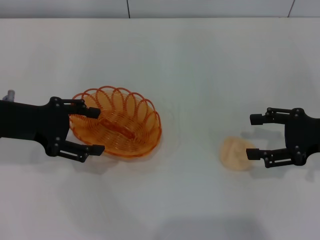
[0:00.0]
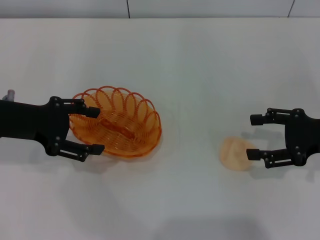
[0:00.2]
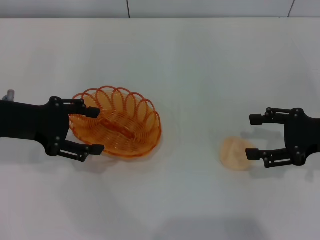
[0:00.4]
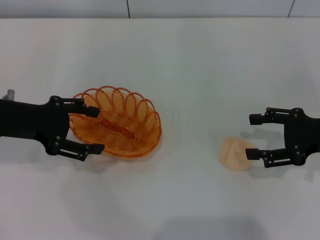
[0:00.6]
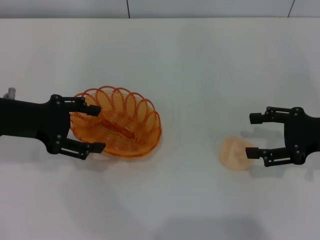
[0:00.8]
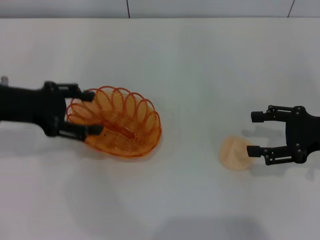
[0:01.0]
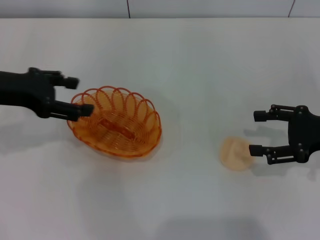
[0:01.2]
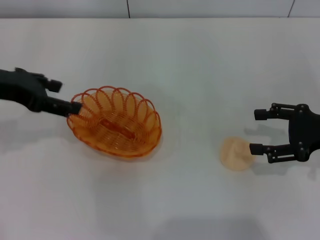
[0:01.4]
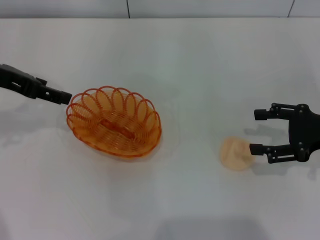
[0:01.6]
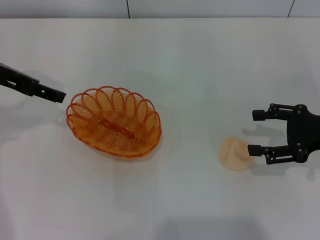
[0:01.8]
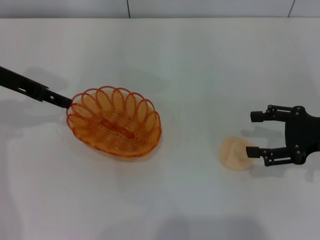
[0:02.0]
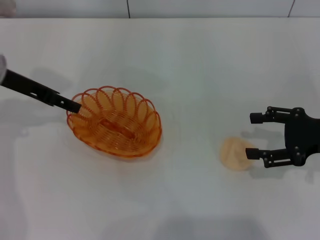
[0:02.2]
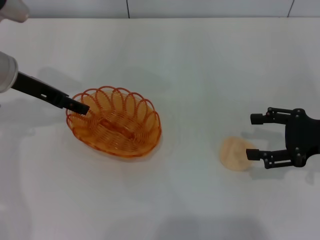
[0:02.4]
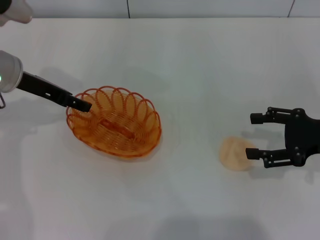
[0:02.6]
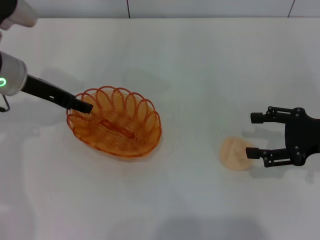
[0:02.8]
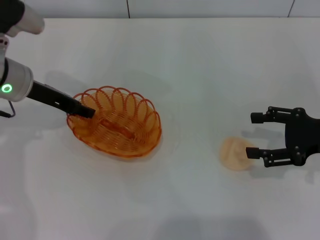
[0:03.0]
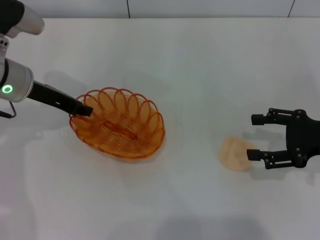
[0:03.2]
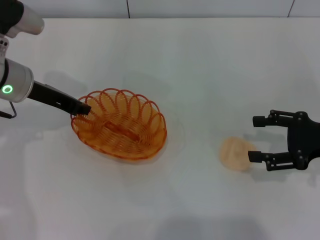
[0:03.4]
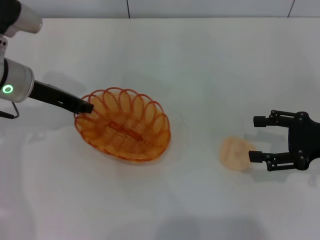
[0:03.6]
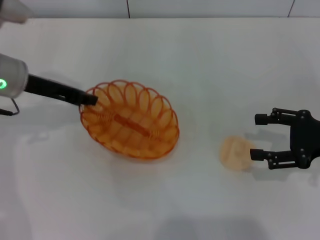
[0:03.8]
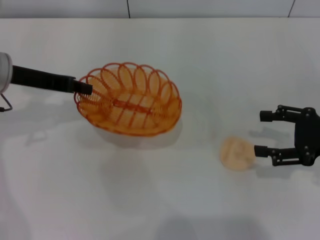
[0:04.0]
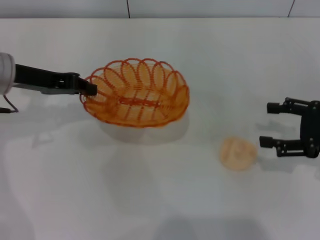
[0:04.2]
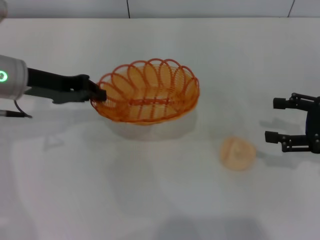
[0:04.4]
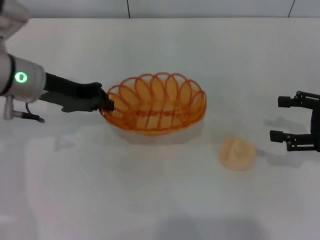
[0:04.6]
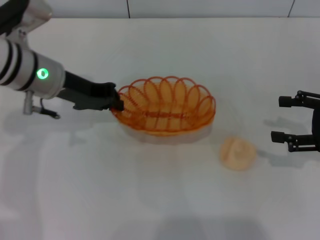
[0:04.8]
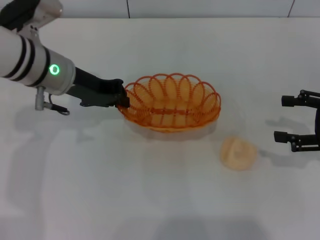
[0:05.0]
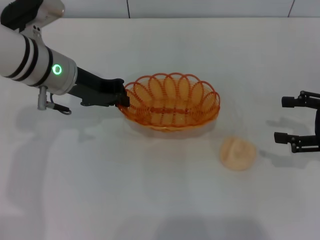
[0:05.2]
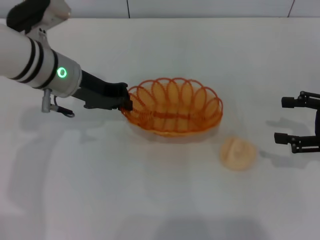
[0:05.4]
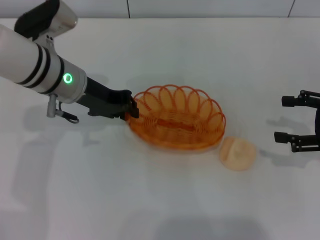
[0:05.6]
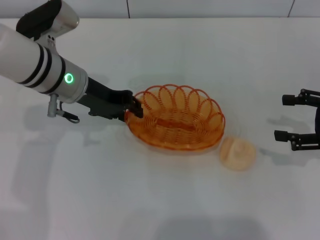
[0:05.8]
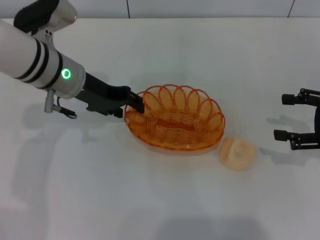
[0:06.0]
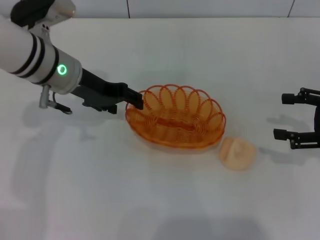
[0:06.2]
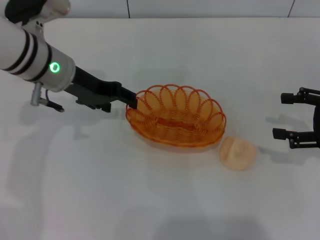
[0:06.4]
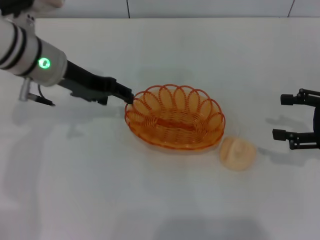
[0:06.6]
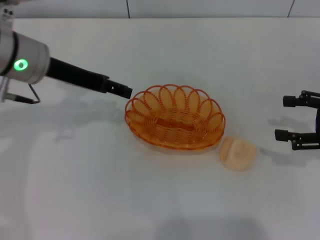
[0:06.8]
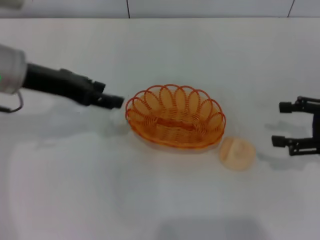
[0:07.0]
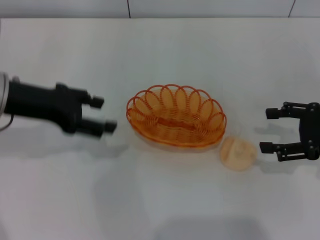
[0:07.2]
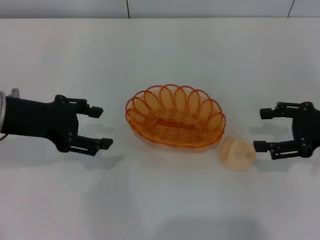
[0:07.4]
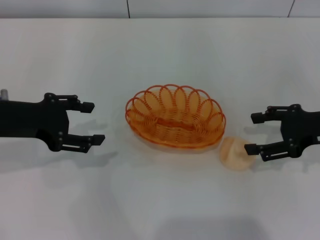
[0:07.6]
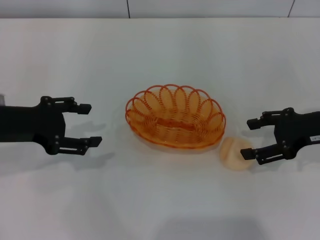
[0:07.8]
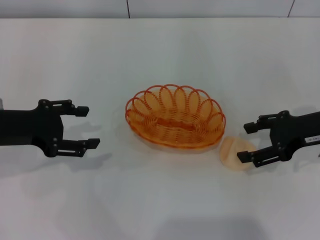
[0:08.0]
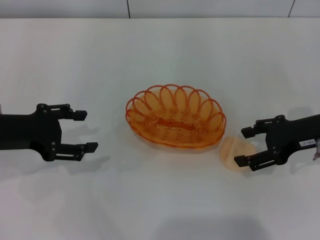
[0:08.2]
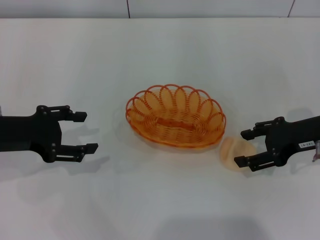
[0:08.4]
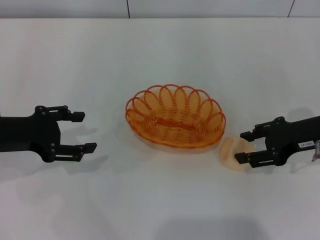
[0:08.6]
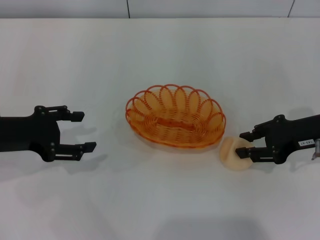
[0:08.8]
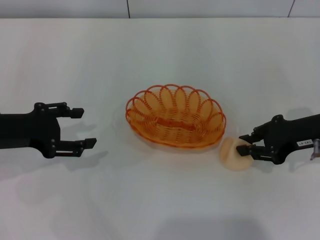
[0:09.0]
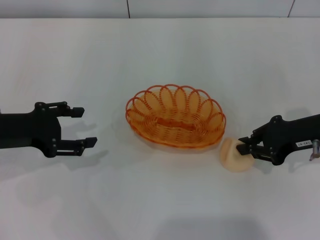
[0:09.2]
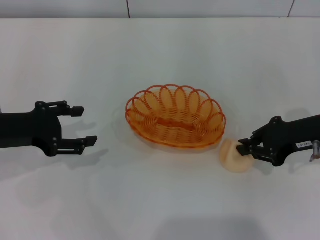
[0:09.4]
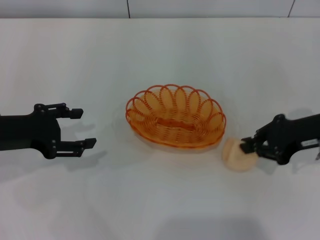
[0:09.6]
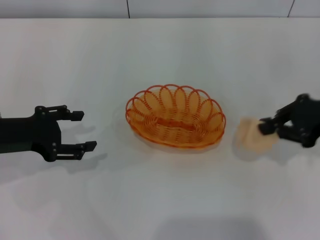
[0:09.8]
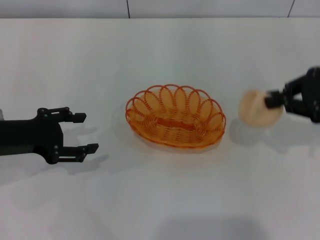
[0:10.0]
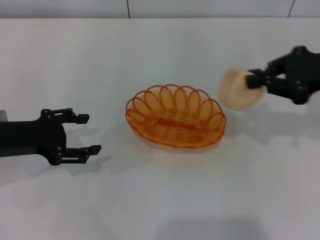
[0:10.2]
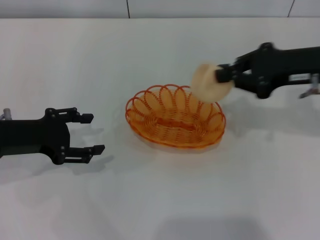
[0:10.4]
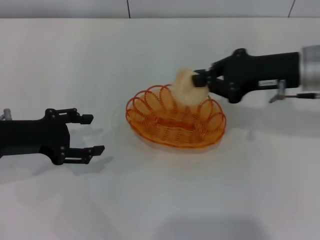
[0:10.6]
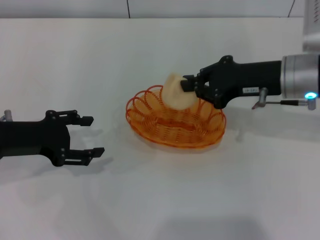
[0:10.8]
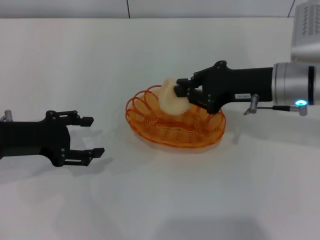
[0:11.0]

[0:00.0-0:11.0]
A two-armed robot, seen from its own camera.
Step, 0.0 to 4.8 s: Pick up the basket with the left gripper.
Step, 5.0 to 6.8 s: Place the basket in the center of view with the left gripper.
Step, 7.0 to 9.8 s: Pick up the egg yolk pastry with the right gripper.
0.0 to 1.6 s: The left gripper moves upward, approximately 5 cm.
1.6 to 3.2 s: The left gripper heads downward, covering some 10 cm, and closes up.
3.2 to 4.8 s: The left gripper closes its fingers.
4.8 to 6.2 s: The left gripper opens its fingers.
6.2 to 7.8 s: The right gripper shifts some 5 cm to the left. The left gripper heads to the left and backward, covering approximately 15 cm, and opens its fingers.
7.8 to 9.4 s: The right gripper closes.
9.4 to 11.0 s: The right gripper moves to the left, about 10 cm.

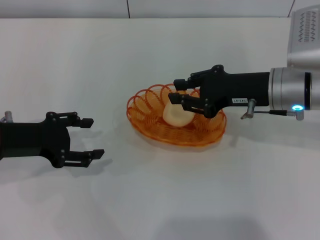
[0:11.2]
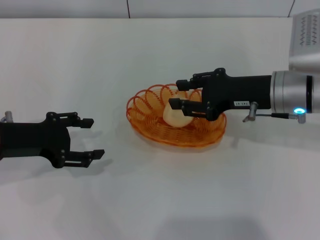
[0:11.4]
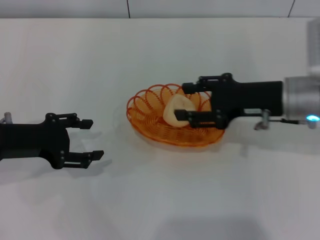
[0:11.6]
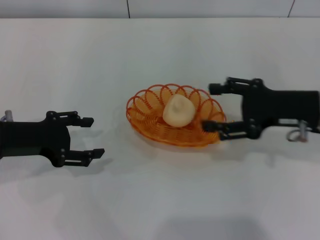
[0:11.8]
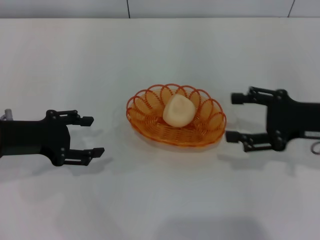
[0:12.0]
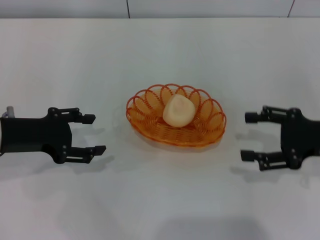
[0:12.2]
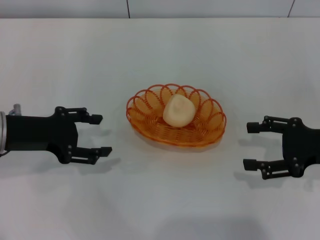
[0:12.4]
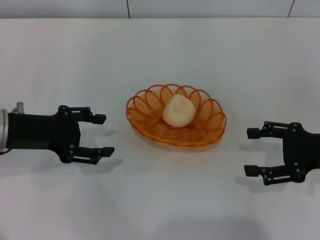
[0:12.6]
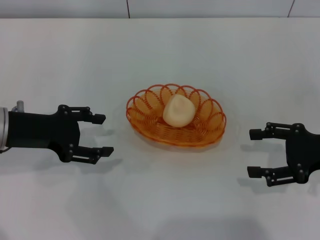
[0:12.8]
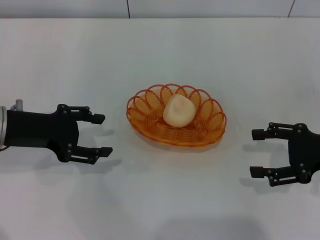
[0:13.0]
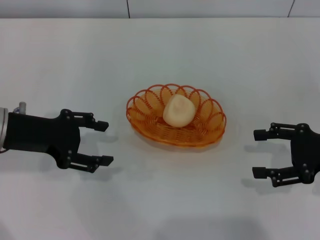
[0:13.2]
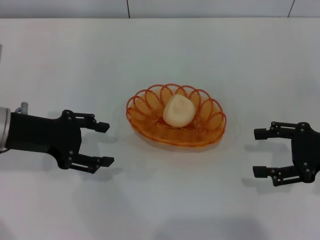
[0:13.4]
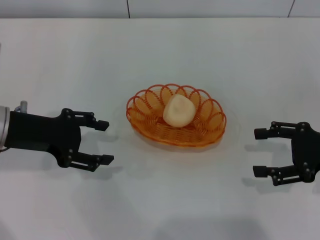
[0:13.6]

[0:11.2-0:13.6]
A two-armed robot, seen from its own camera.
11.2 to 12.4 s: The right gripper moves to the right and backward, some 15 cm, and opens up.
12.4 to 13.6 s: The grippers stay close to where they were, moving slightly.

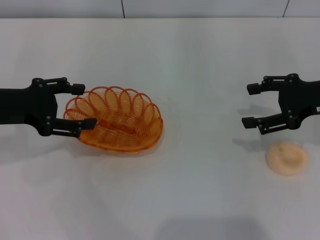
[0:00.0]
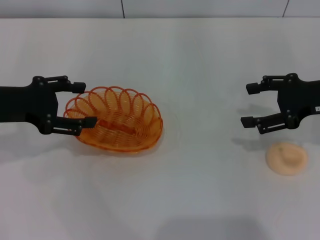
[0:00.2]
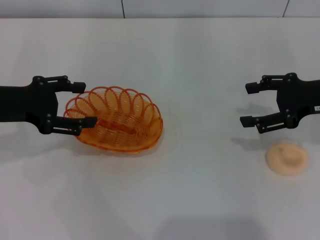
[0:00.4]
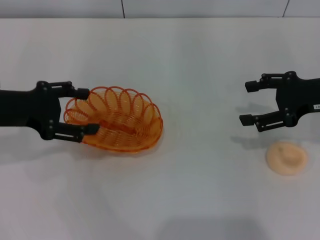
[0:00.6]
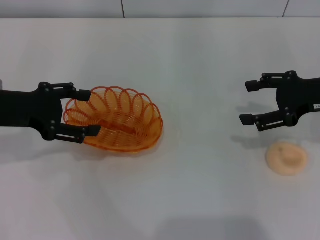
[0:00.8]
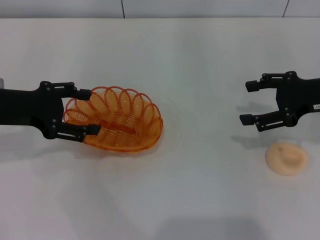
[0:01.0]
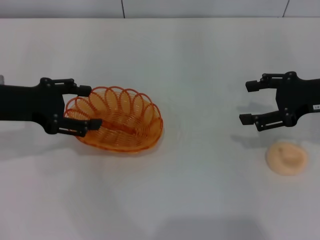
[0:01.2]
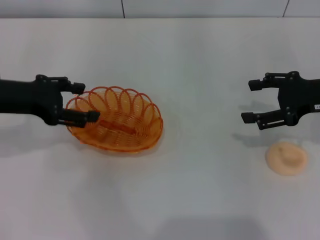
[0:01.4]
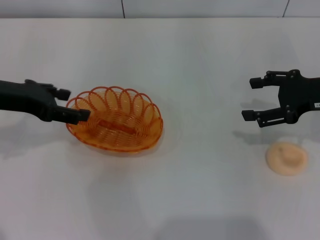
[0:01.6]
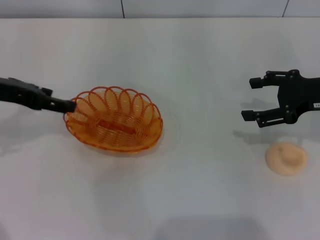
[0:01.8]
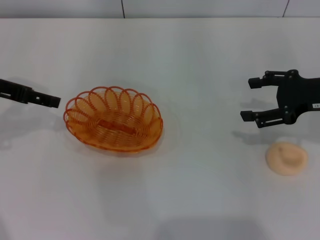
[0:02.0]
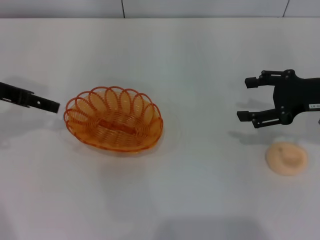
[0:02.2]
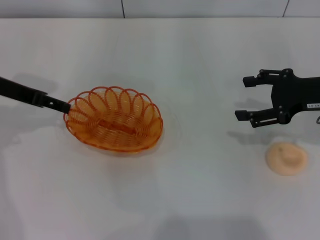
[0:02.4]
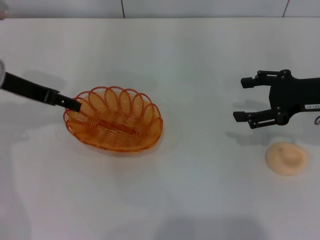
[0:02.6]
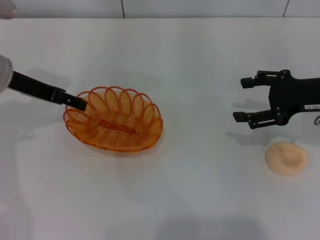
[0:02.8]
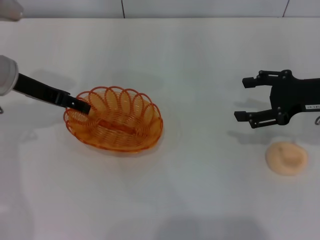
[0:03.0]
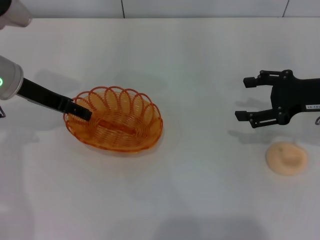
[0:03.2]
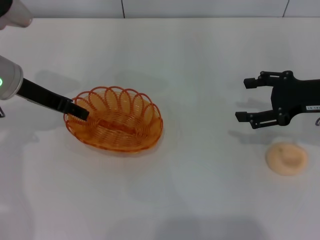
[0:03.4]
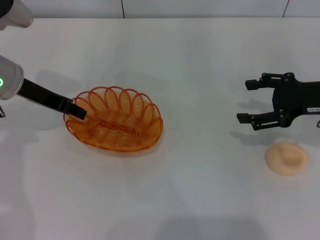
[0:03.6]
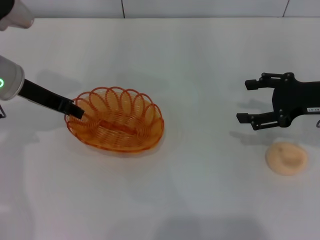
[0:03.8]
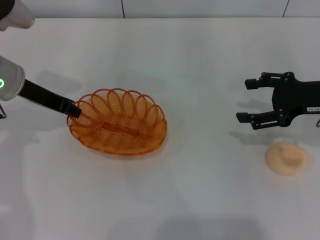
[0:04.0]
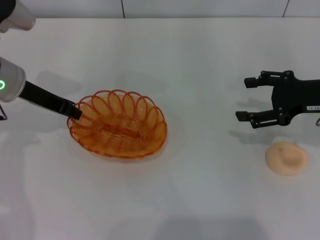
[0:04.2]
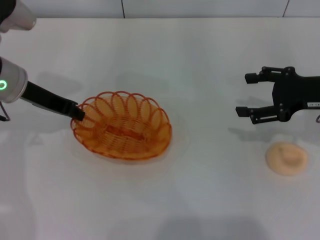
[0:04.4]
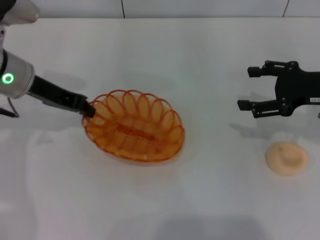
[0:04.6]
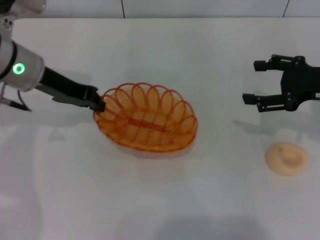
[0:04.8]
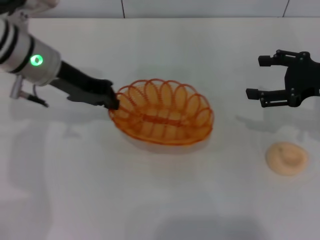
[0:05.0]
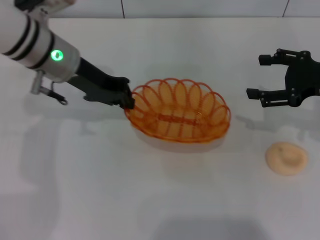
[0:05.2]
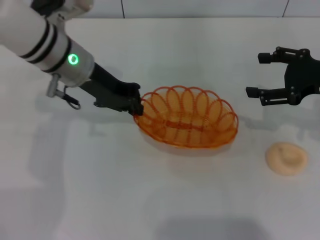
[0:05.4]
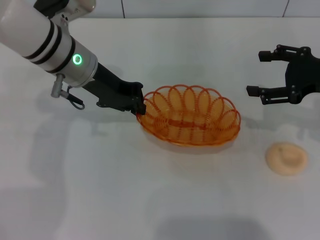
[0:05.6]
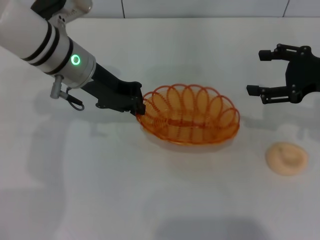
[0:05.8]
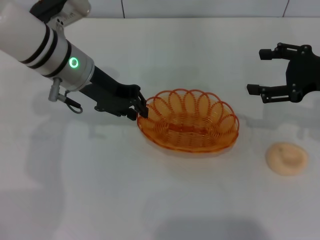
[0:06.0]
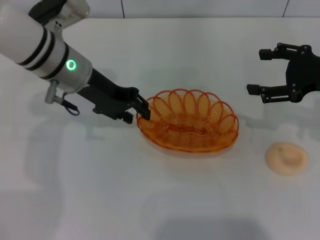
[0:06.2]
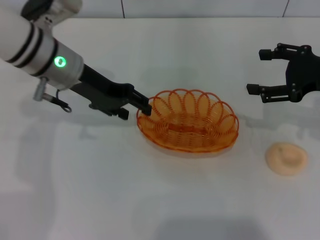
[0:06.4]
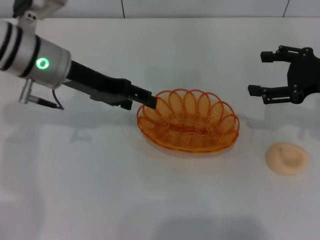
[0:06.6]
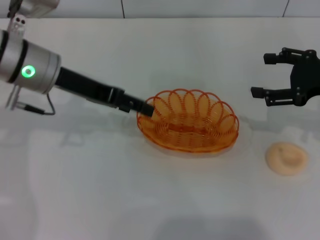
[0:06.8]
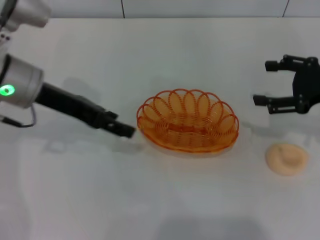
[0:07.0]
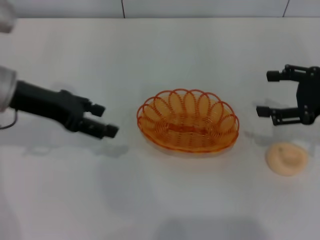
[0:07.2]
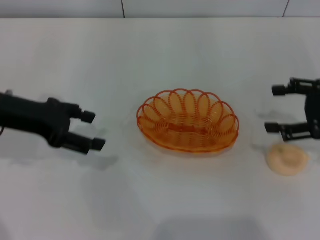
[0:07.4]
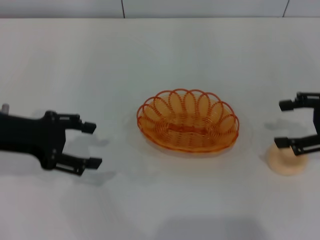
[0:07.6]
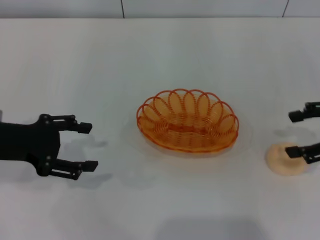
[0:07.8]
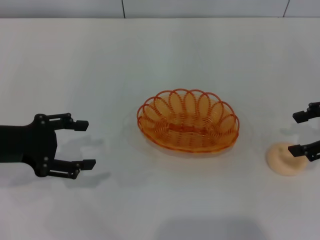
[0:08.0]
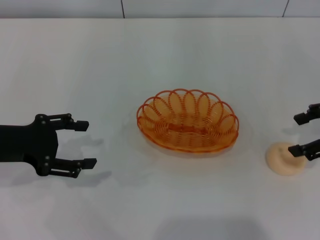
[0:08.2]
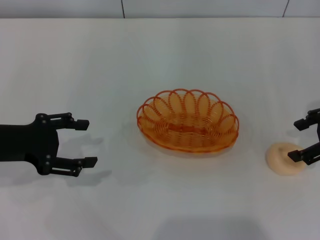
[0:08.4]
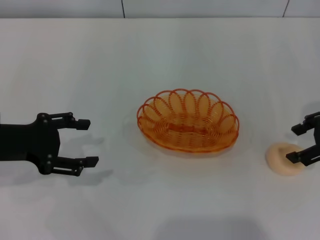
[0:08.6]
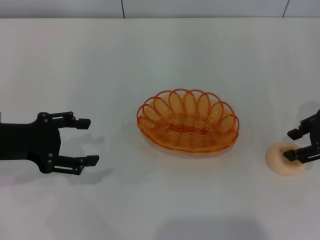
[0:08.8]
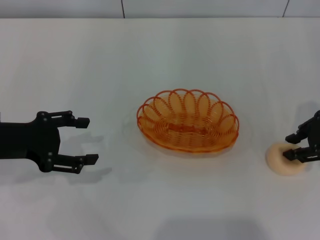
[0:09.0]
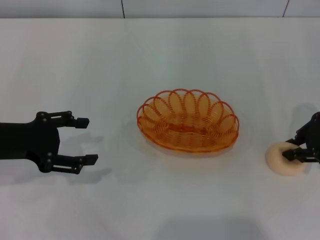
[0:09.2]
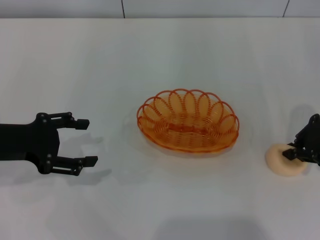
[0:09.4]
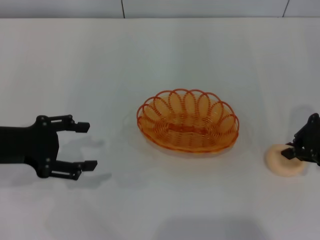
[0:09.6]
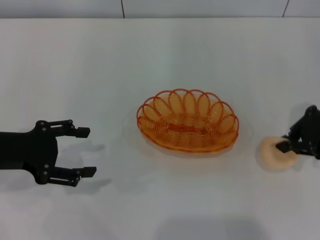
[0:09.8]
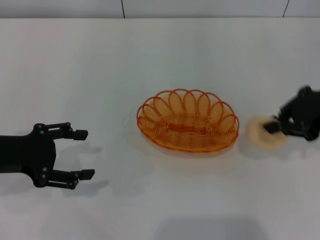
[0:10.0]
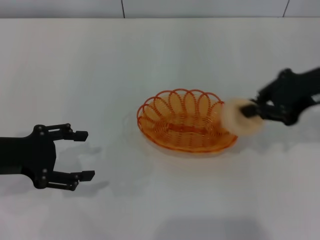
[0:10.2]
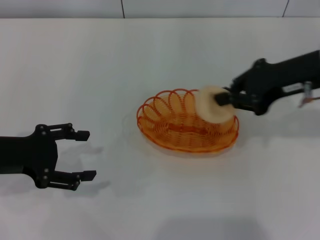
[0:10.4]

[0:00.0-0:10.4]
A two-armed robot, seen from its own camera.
Step, 0.0 to 4.8 s: Pick up the basket with the left gripper.
Step, 5.0 to 6.8 s: Place the basket in the center of view with the left gripper.
Step, 7.0 to 9.8 s: Pick up the egg yolk pastry with the right gripper.
0.0 to 1.4 s: The grippers make only small movements.
1.4 to 3.0 s: The left gripper moves forward, roughly 5 cm.
3.0 to 4.4 s: The left gripper closes up.
4.4 to 6.0 s: The left gripper heads to the right, covering approximately 10 cm.
6.0 to 7.4 s: The left gripper travels to the left and backward by about 15 cm, and opens up.
7.4 to 9.0 s: The right gripper closes. The left gripper changes place by some 5 cm.
9.0 to 10.4 s: The right gripper travels to the left and upward by roughly 10 cm, and closes up.
